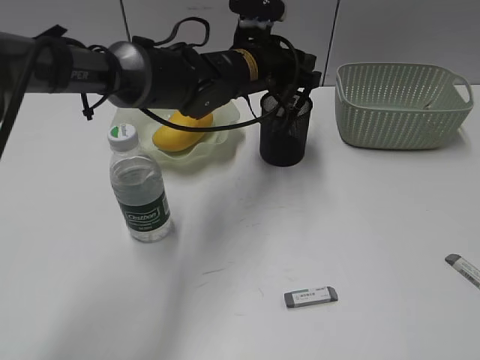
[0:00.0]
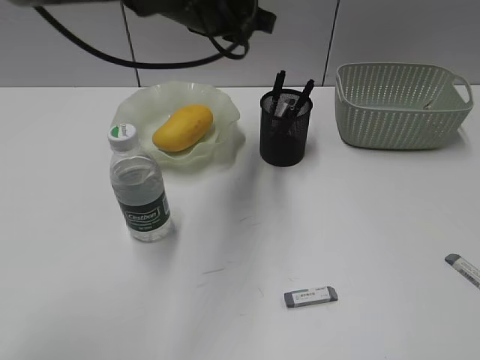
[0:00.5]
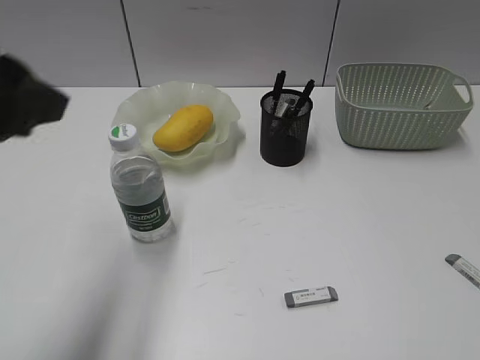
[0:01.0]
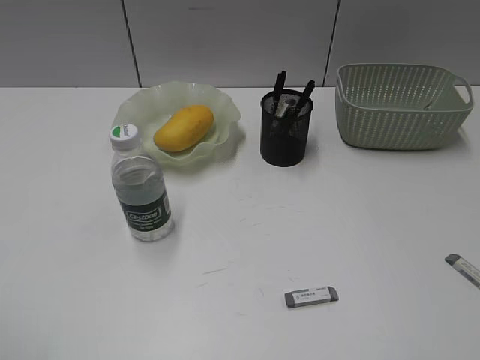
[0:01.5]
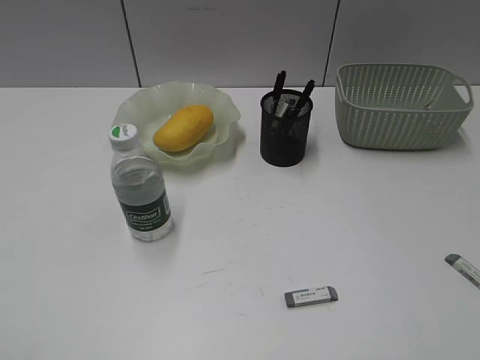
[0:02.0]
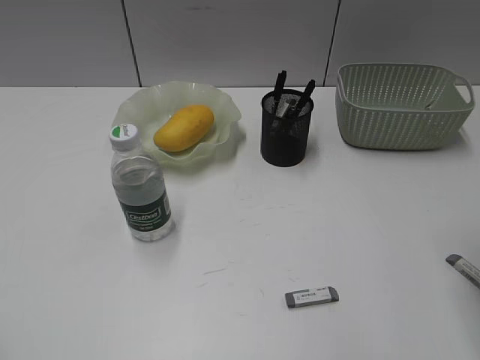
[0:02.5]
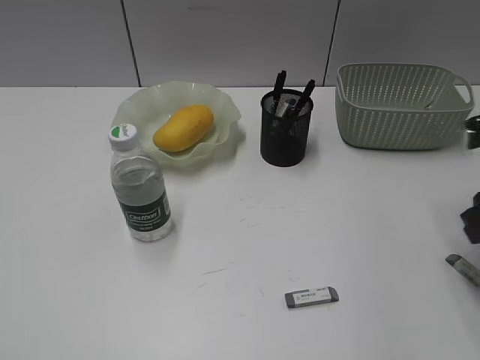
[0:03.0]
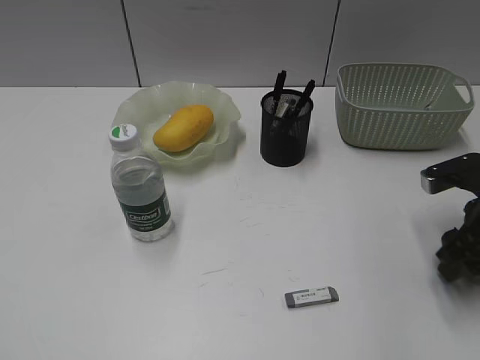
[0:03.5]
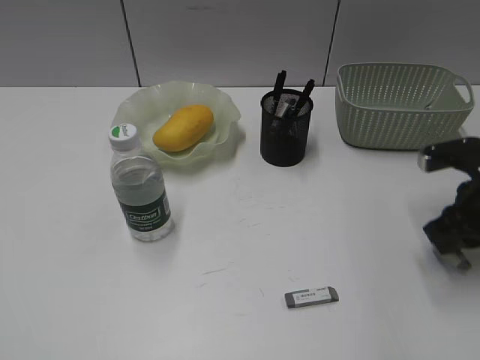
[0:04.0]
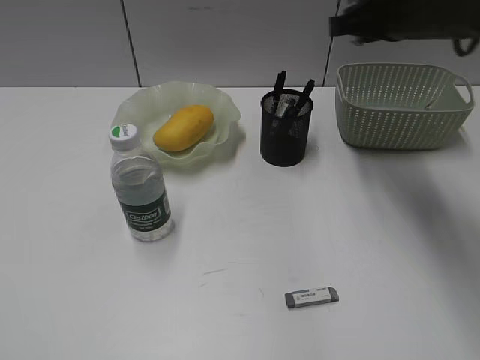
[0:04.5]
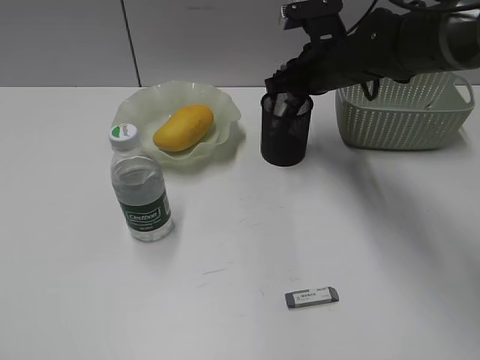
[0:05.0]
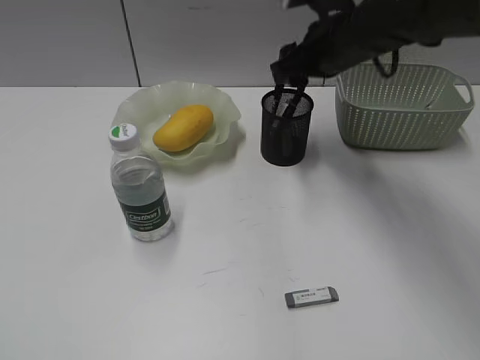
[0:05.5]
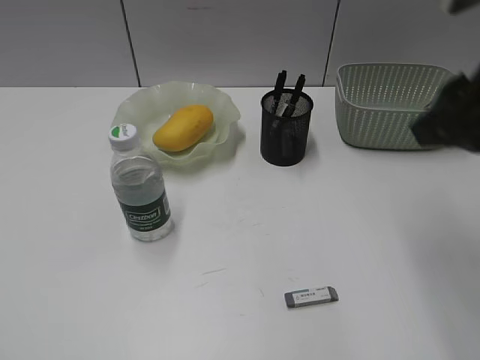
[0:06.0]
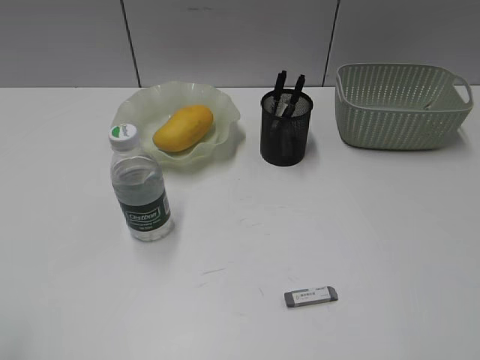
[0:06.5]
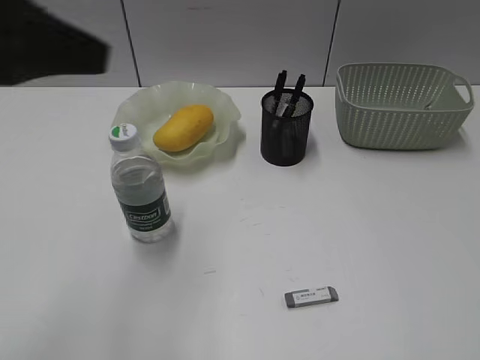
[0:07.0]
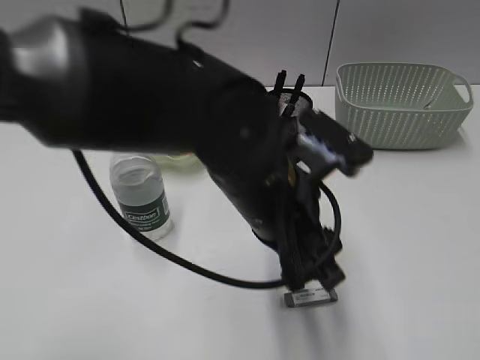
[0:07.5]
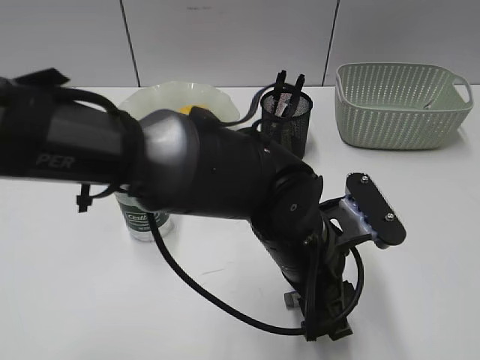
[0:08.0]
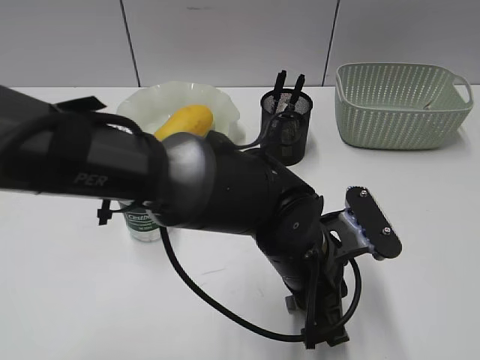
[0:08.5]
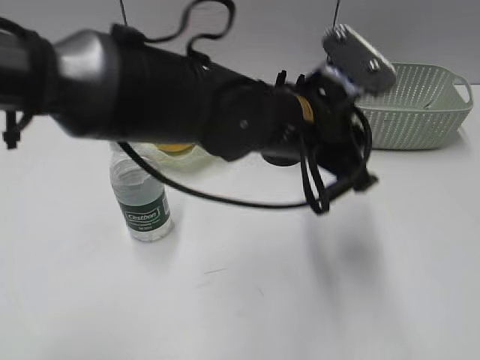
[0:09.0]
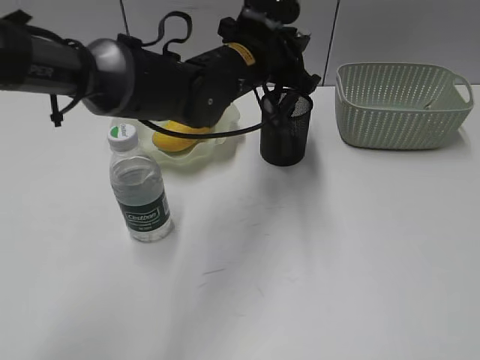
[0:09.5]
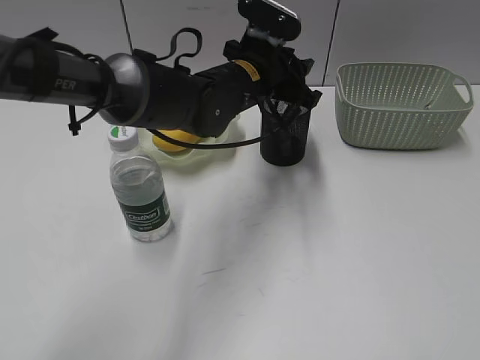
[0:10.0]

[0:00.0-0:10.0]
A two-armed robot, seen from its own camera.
Step, 0:00.5 to 0:03.5: Grasp the eraser with right gripper.
Step, 0:04.0 to 0:05.5: Place the eraser in pen holder with right gripper.
Step, 0:06.0 to 0:08.5: Grasp the eraser with left gripper.
0:00.0 to 0:02.0: The left gripper is displaced backward and to the left by some 50 cm.
0:02.0 to 0:04.0: The right gripper travels forward and downward by some 30 cm, and closes its fingers.
0:04.0 to 0:06.0: The right gripper goes approximately 20 cm upward, travels forward and back again, about 15 cm each way, and opens.
0:06.0 to 0:08.0: The left gripper travels to the right and forward by about 50 cm. The right gripper is displaced backward and to the right by about 25 cm.
0:08.0 to 0:10.0: The left gripper shifts approximately 20 cm forward, and closes, then opens again.

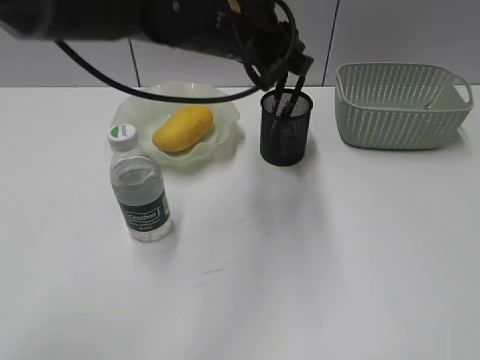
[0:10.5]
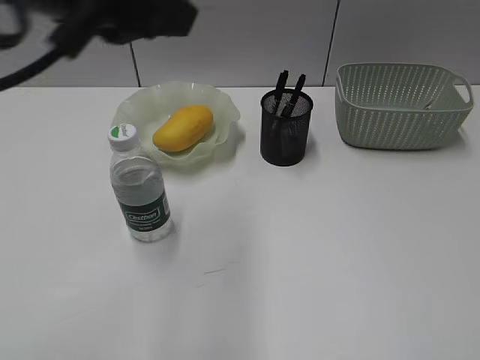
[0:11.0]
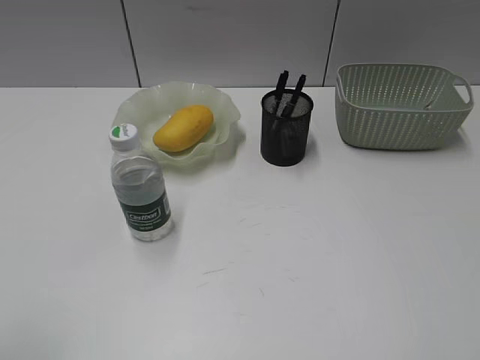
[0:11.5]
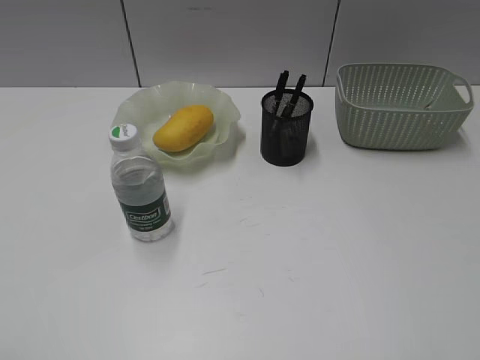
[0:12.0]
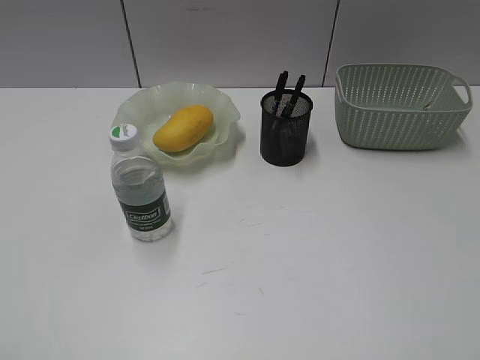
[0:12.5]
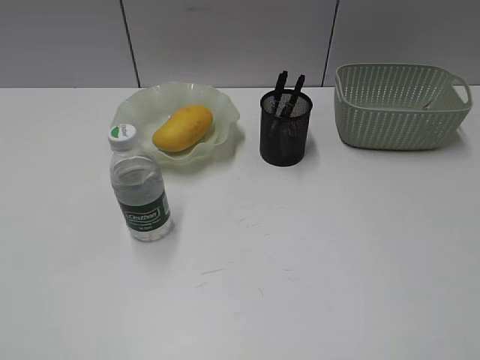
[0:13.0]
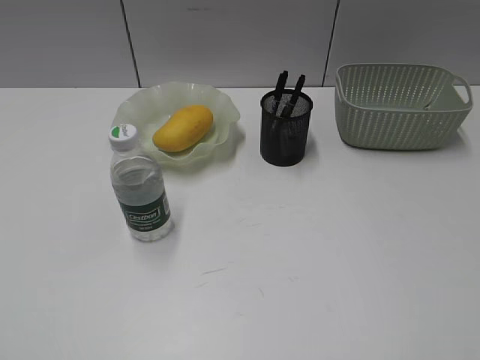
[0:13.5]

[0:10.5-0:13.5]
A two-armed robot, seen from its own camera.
0:10.5 to 0:12.0: The left gripper goes about 50 cm backward and to the left.

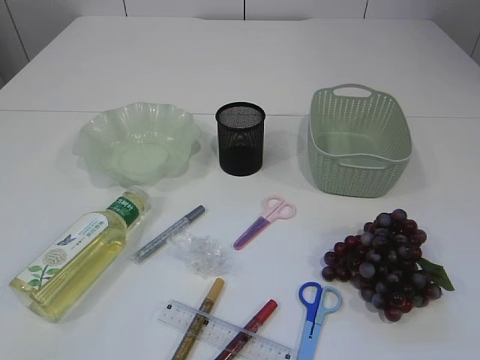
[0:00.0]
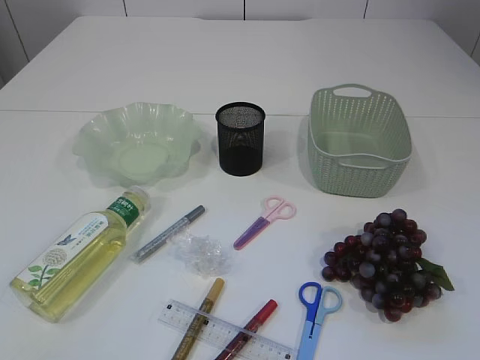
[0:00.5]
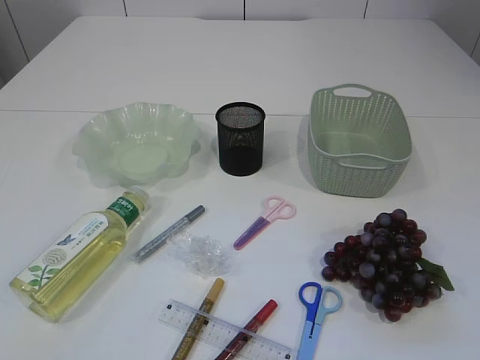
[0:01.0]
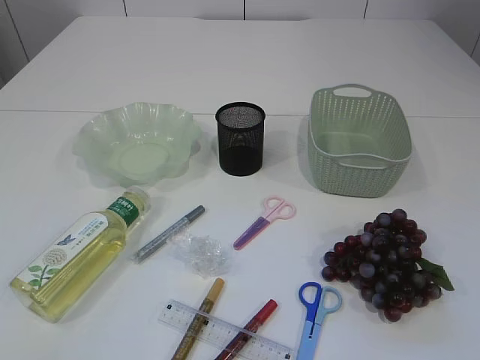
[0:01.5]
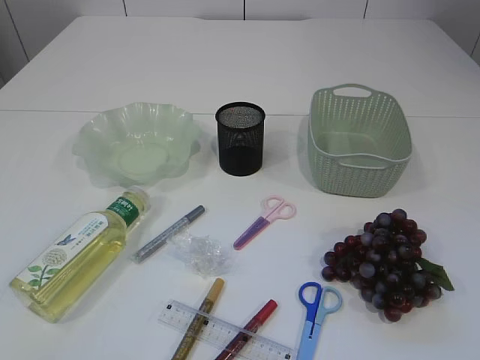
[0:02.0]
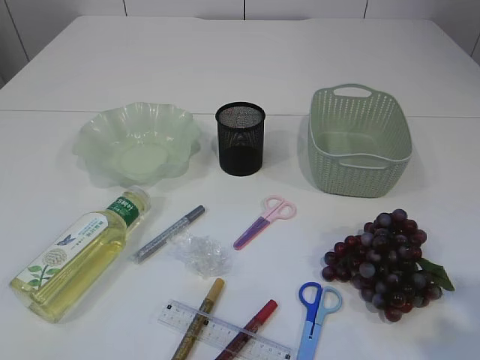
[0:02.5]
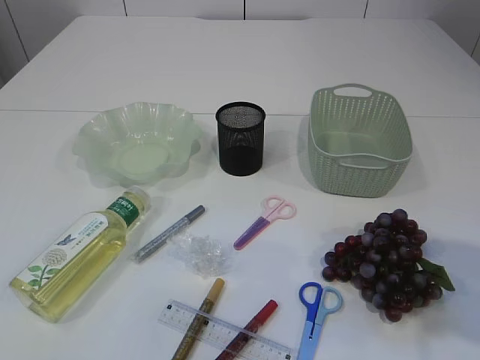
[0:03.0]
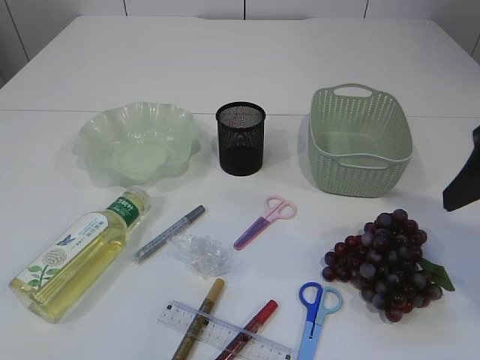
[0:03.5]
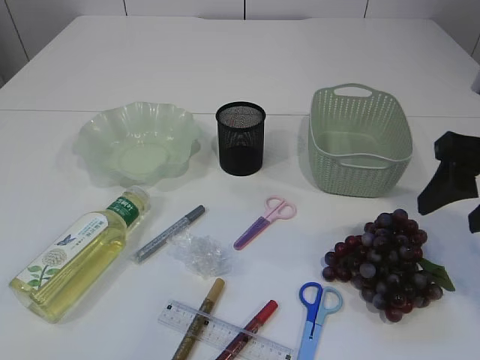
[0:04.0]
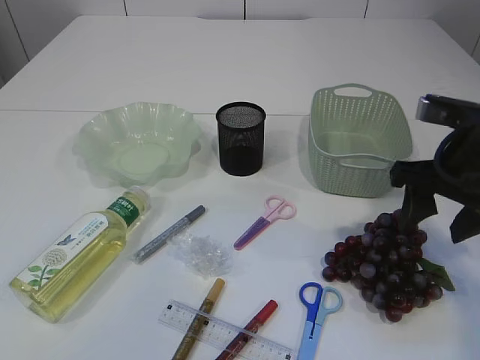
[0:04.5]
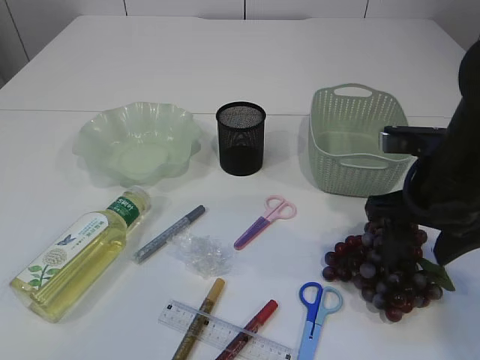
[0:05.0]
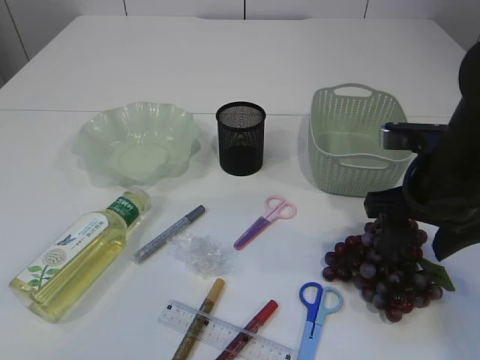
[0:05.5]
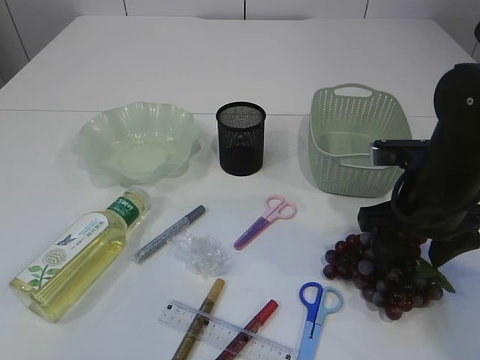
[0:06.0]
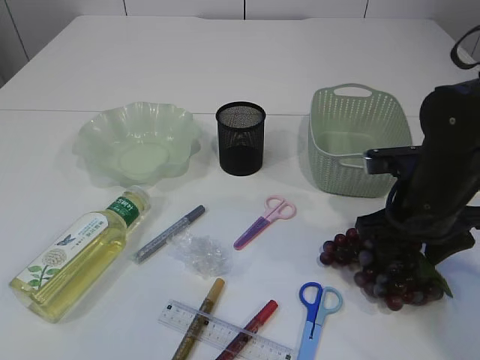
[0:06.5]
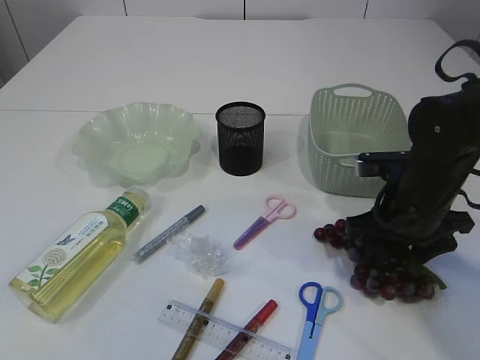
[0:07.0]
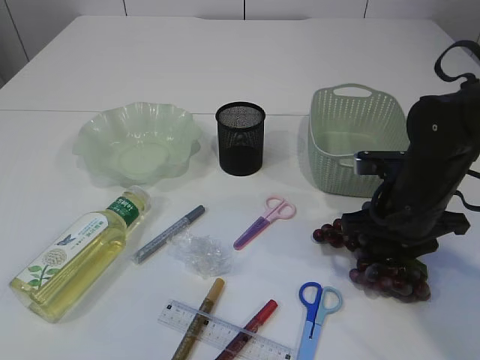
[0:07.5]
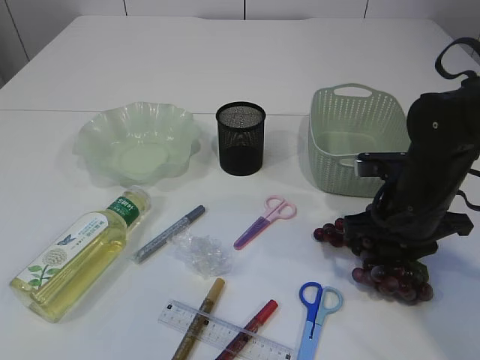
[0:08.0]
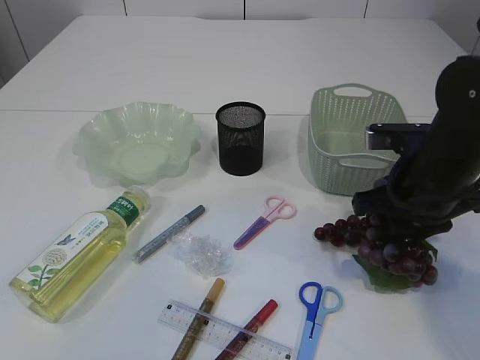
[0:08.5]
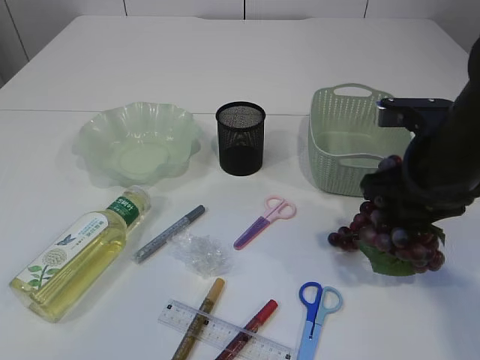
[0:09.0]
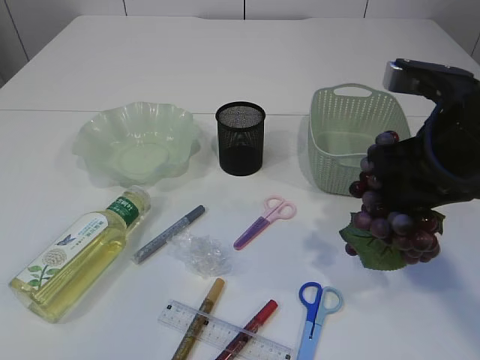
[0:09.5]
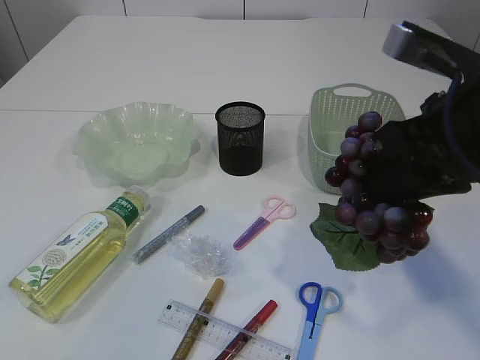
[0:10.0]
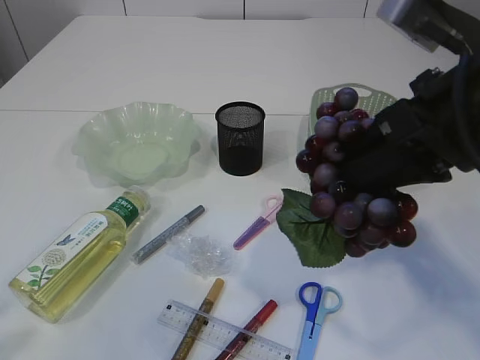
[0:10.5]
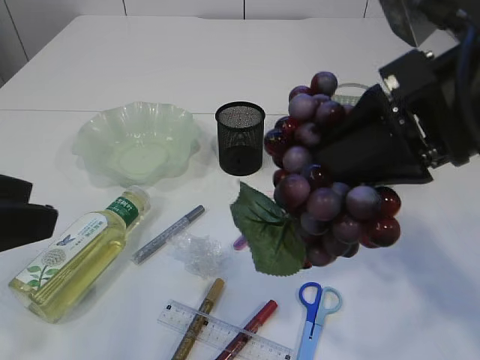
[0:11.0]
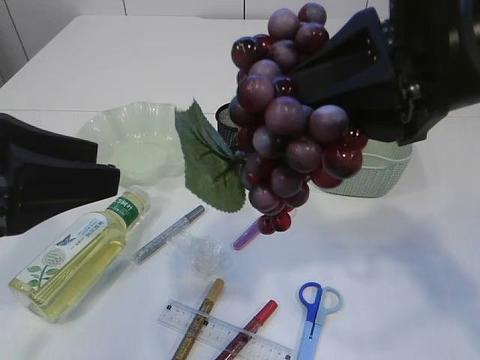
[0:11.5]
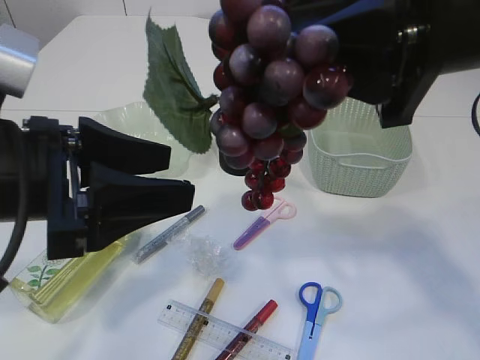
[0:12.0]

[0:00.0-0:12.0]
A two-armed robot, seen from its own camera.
Step, 0:00.0 to 0:10.5: Pick up the grapes.
0:02.0 to 0:04.0: The right gripper goes roughly 25 cm forward.
0:04.0 to 0:06.0: The right gripper travels downward and to the left by some 10 cm.
0:06.0 to 0:08.0: The right gripper closes.
0:08.0 to 0:10.0: The right gripper is displaced upward and backward by some 20 cm.
0:10.0 to 0:12.0: The left gripper shifts approximately 25 cm forward and to the right, while the right gripper moves upward, roughly 5 cm.
